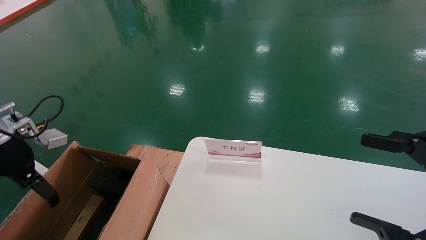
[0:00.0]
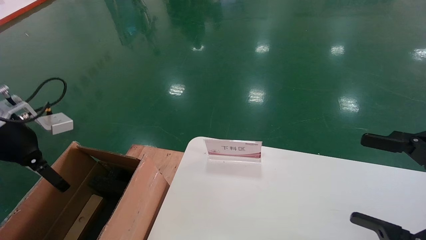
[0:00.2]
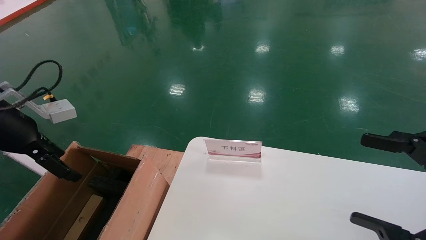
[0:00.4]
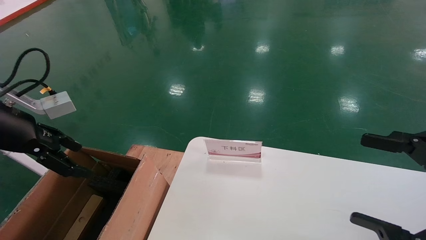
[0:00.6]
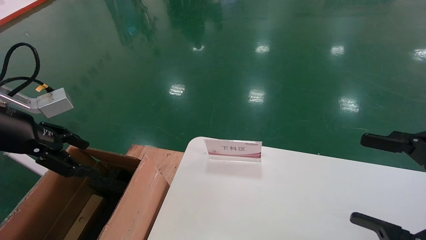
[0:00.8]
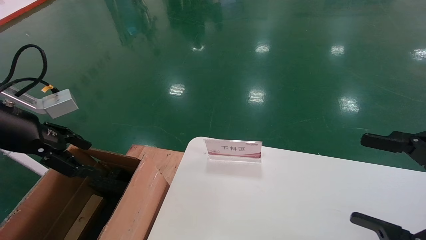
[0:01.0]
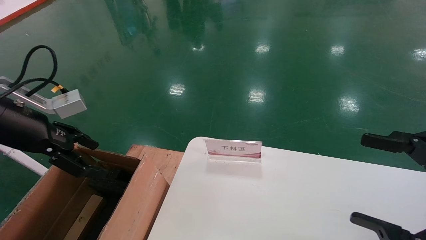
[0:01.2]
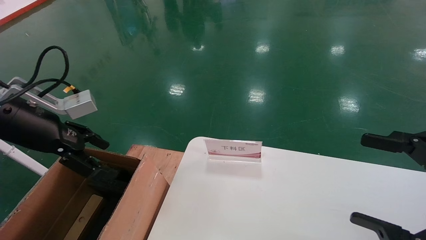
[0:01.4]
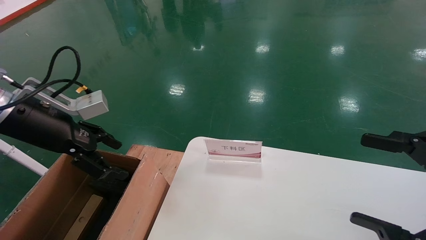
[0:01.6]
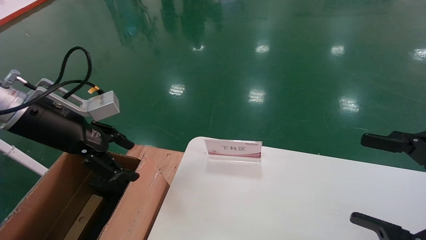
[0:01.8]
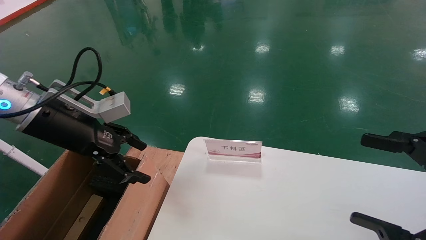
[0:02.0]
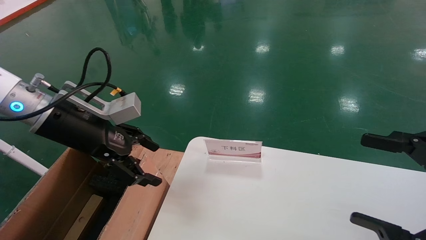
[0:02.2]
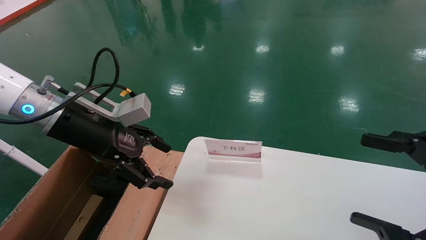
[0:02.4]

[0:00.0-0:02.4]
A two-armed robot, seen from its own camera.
Task of the whole recording: pick up the small cardboard box and load it into the large cardboard box.
0:00.0 to 0:01.2: The left gripper heads to the right and upward, covering roughly 5 cm.
0:01.2 to 0:02.4: The left gripper moves to the right, approximately 10 cm.
